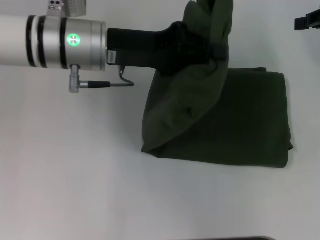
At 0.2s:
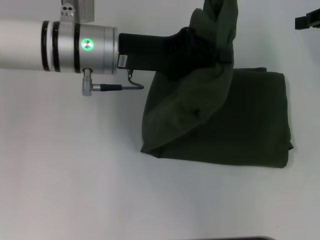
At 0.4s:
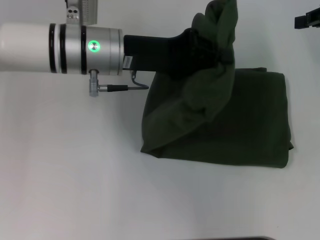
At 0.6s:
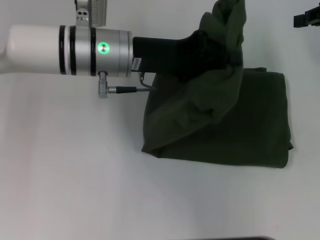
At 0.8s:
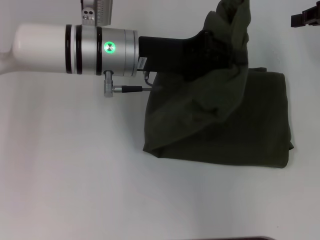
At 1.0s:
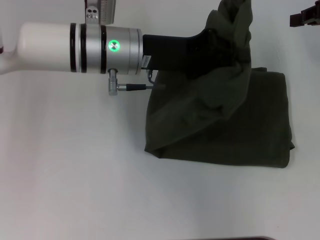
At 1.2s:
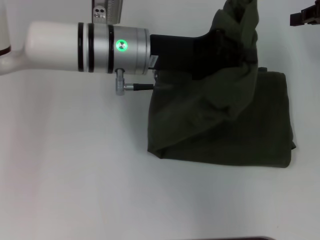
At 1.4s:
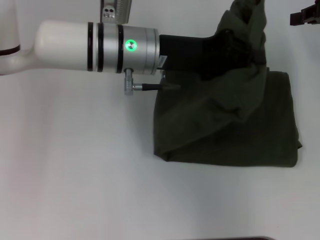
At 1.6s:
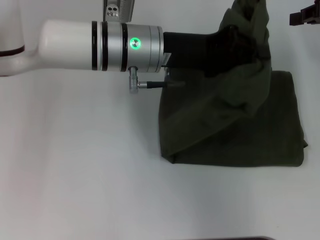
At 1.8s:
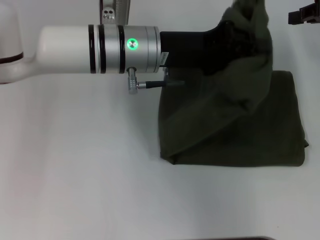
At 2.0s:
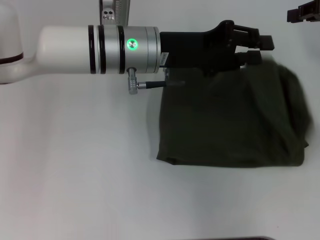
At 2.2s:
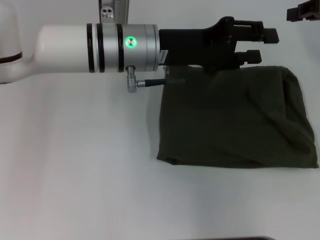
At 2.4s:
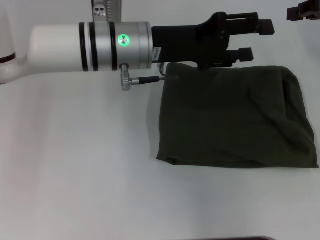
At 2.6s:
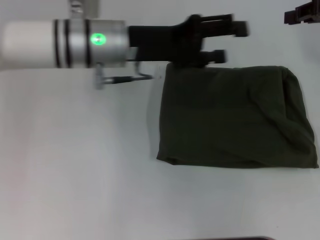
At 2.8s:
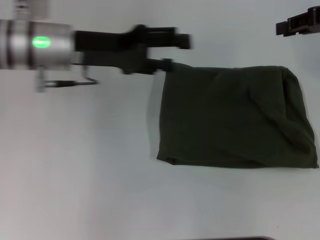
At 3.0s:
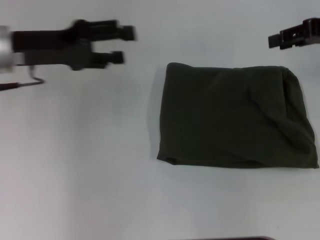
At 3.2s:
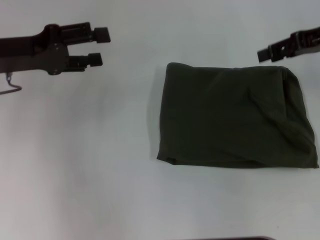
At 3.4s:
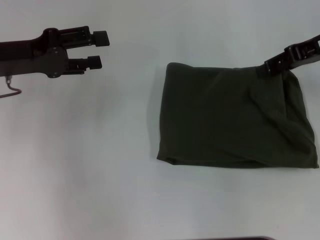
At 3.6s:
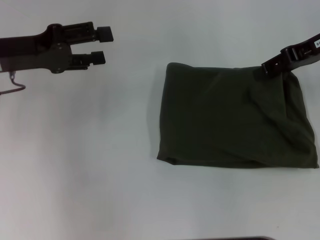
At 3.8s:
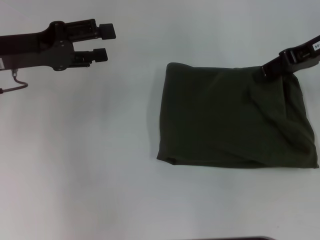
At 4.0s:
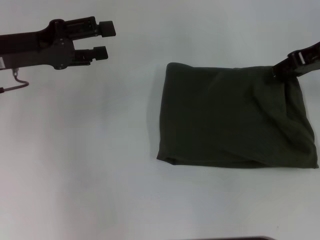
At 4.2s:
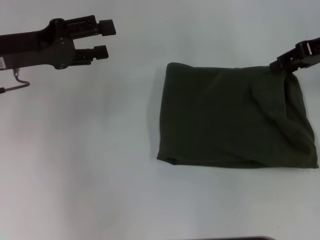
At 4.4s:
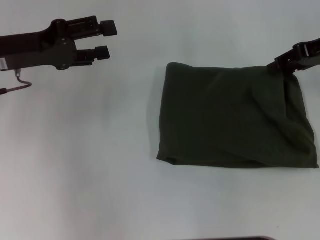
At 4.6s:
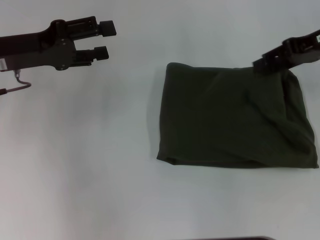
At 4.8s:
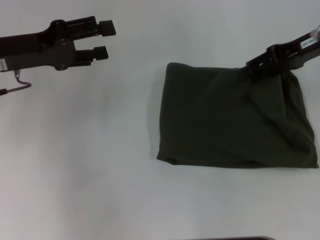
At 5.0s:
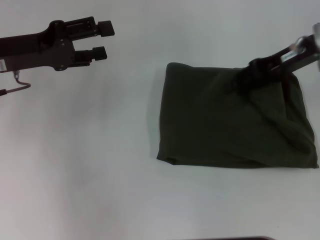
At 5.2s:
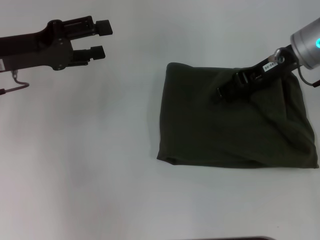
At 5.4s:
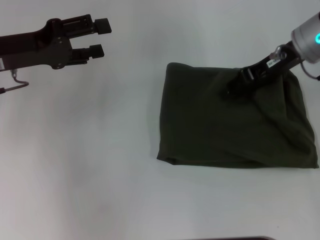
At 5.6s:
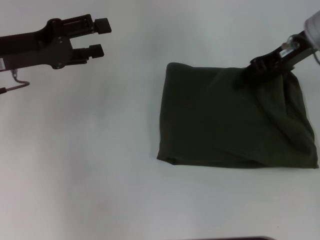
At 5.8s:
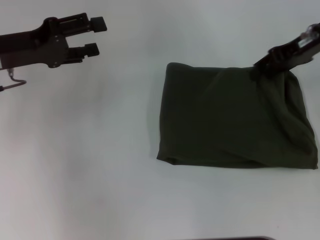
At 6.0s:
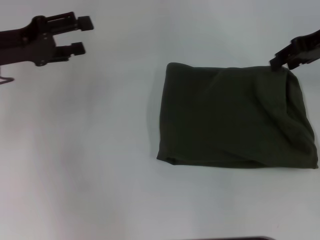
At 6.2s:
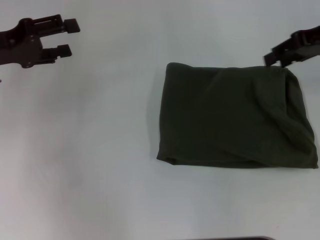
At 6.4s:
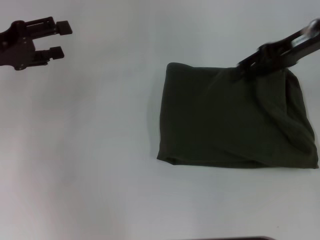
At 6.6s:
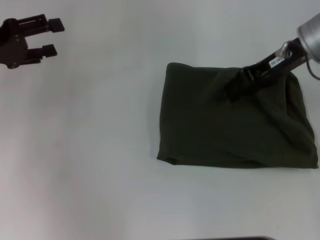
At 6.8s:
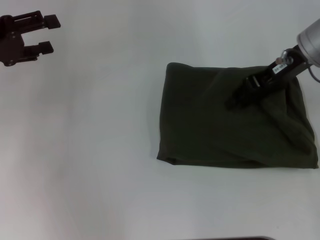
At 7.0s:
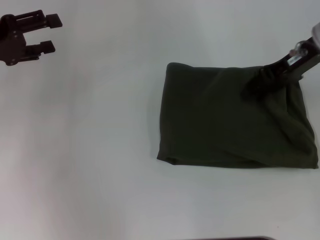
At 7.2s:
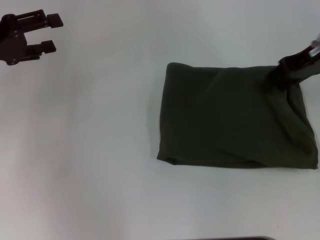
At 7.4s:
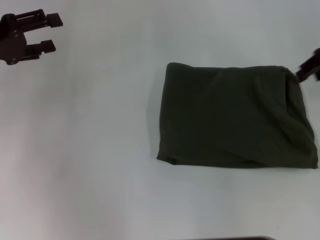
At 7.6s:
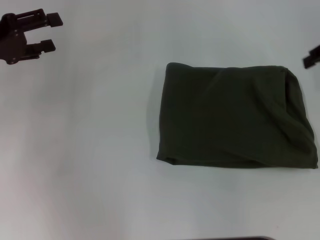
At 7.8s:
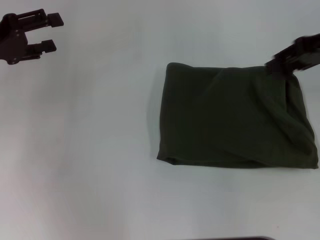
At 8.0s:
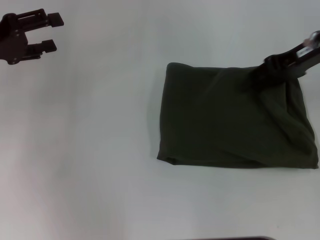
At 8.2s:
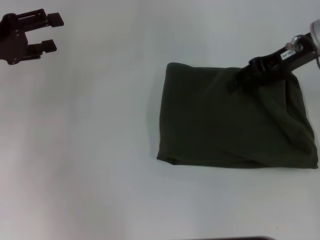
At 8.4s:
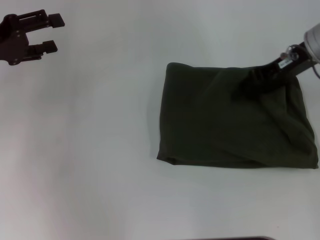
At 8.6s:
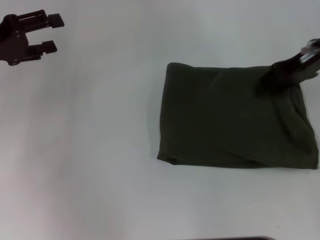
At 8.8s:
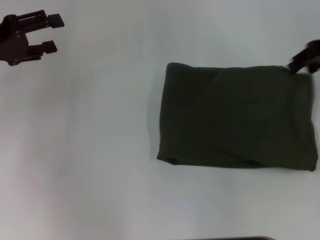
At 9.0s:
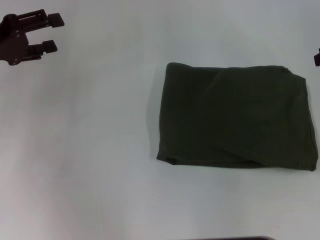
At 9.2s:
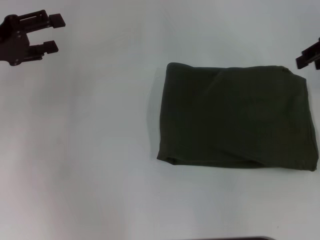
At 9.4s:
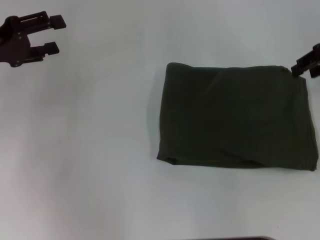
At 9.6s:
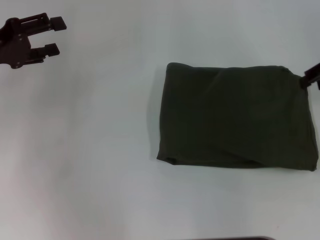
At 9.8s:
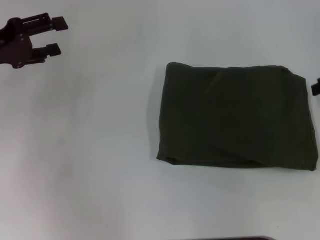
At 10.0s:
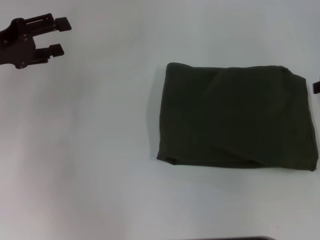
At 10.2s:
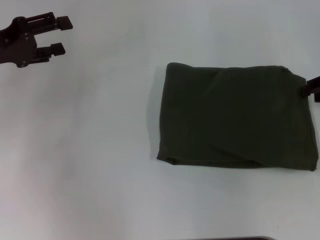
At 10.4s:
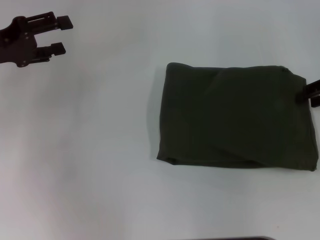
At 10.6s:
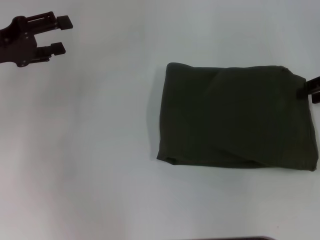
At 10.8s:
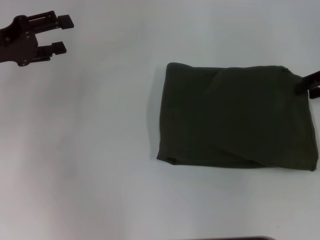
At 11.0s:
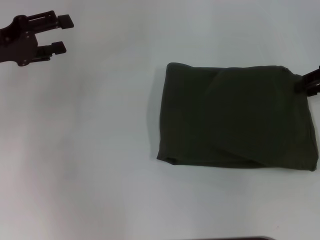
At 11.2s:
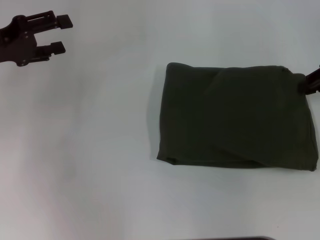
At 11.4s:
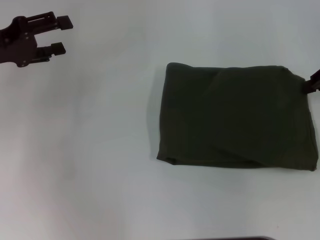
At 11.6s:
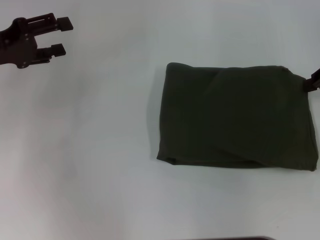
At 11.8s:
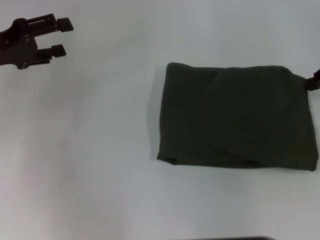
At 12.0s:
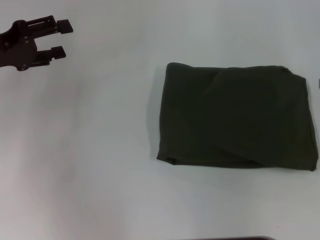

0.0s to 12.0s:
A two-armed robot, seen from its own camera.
Step, 0.0s to 2.0s: Fold the clothes with your left hand.
0.0s to 1.6s: The left gripper goes some 5 cm to the right.
1.6s to 3.0s: The left gripper shifts roughly 20 cm to the left, and opens.
3.0s to 4.4s: The grippers move only a little.
4.4s to 6.0s: The right gripper moves roughly 10 cm to the left and comes back.
6.0s to 7.6s: The right gripper travels to the left and back again, roughly 5 cm each way.
7.6s to 9.0s: The right gripper travels to the left and back again, roughly 10 cm each way.
9.0s to 10.4s: The right gripper shifts about 10 cm downward.

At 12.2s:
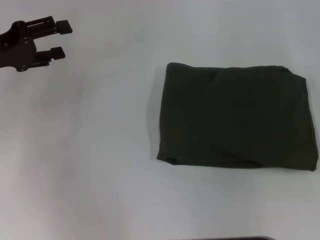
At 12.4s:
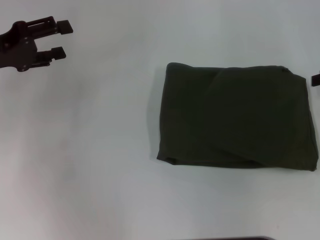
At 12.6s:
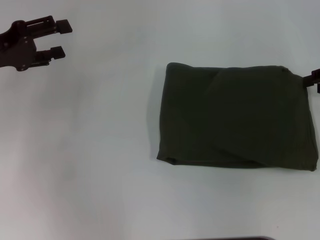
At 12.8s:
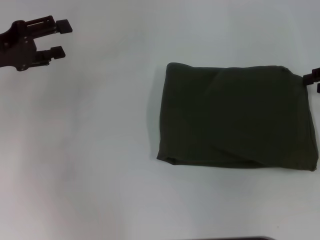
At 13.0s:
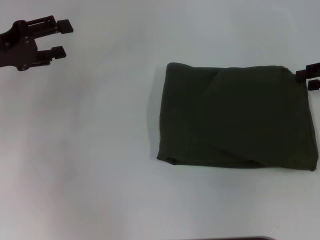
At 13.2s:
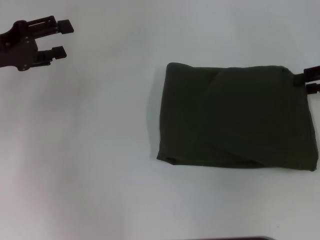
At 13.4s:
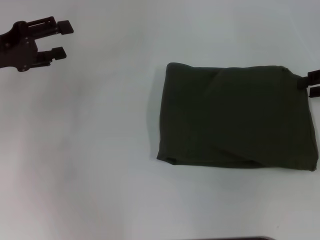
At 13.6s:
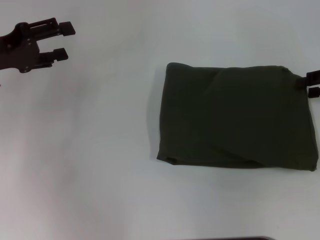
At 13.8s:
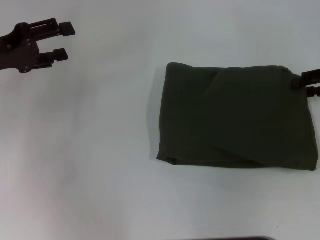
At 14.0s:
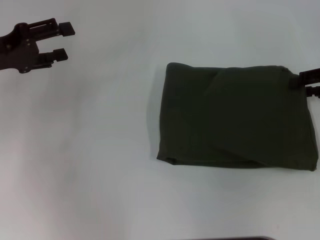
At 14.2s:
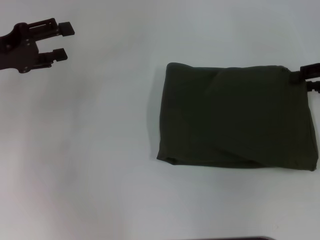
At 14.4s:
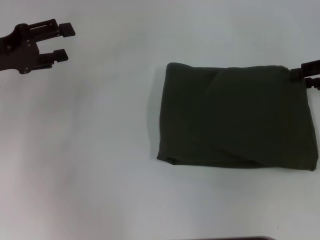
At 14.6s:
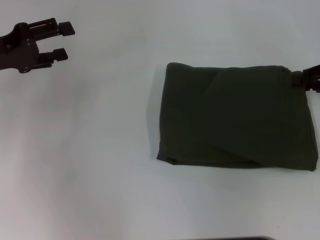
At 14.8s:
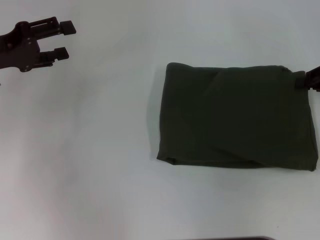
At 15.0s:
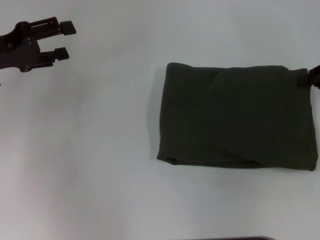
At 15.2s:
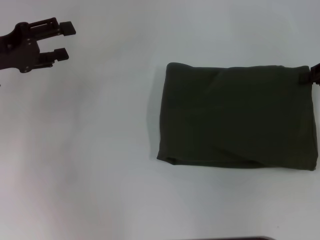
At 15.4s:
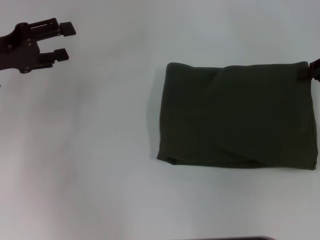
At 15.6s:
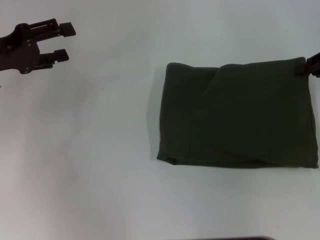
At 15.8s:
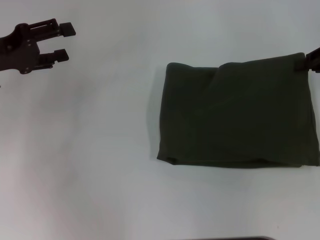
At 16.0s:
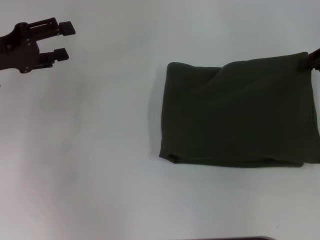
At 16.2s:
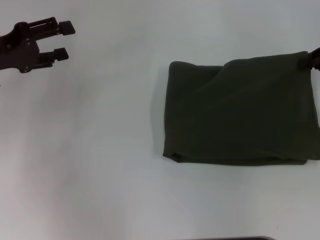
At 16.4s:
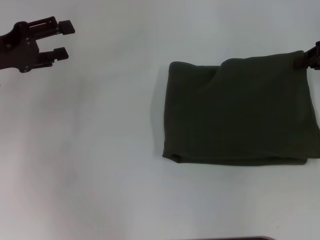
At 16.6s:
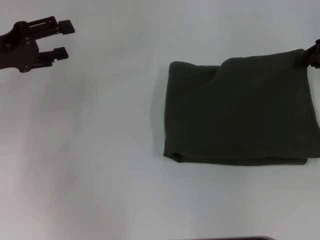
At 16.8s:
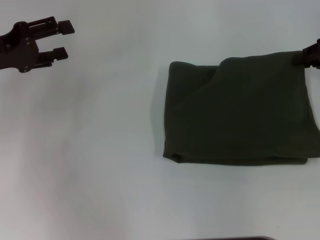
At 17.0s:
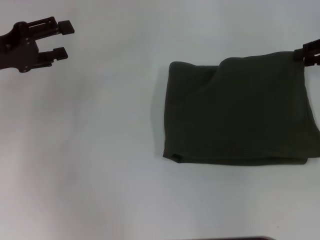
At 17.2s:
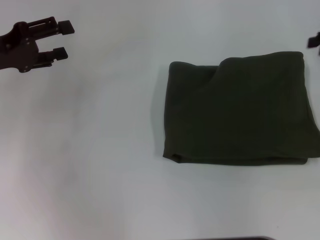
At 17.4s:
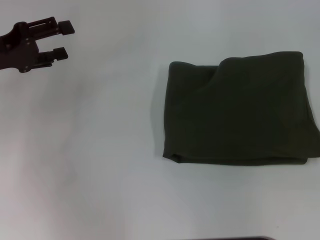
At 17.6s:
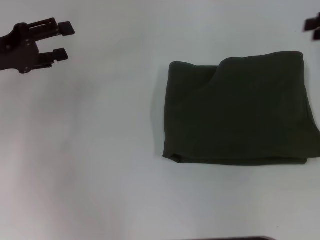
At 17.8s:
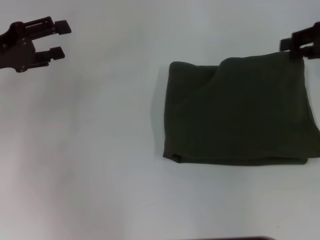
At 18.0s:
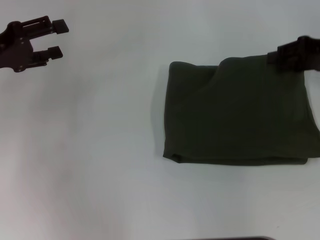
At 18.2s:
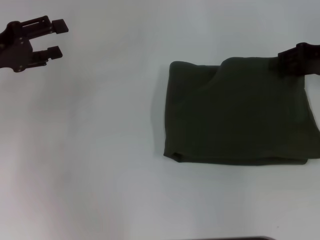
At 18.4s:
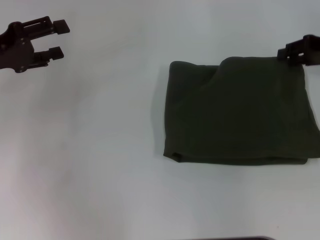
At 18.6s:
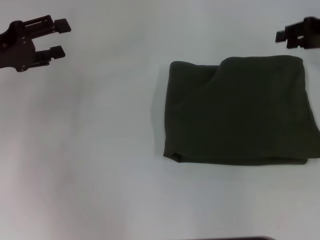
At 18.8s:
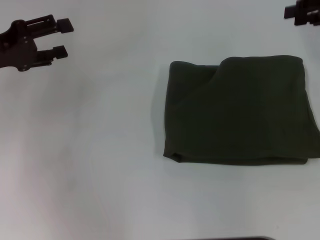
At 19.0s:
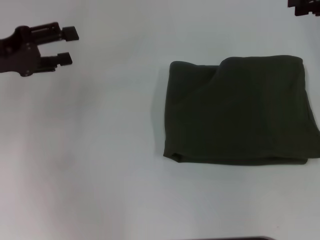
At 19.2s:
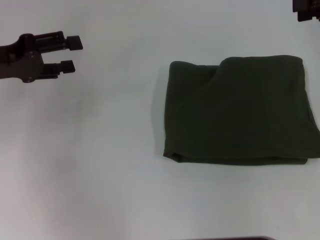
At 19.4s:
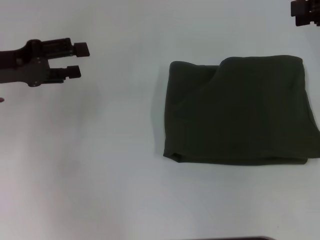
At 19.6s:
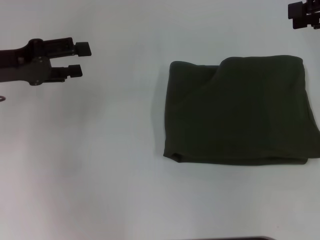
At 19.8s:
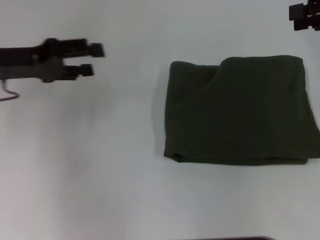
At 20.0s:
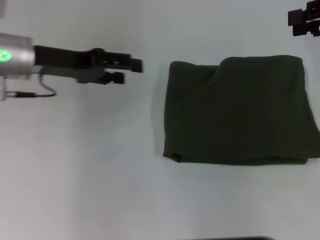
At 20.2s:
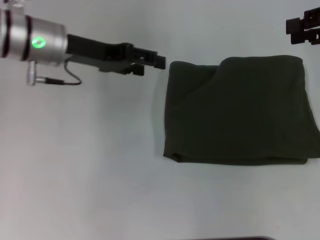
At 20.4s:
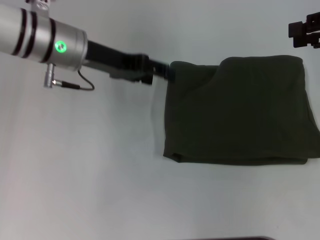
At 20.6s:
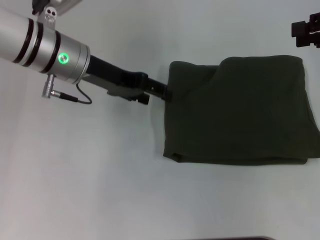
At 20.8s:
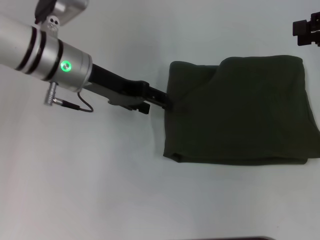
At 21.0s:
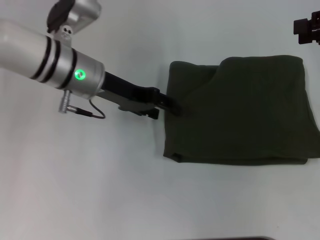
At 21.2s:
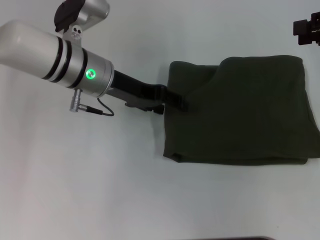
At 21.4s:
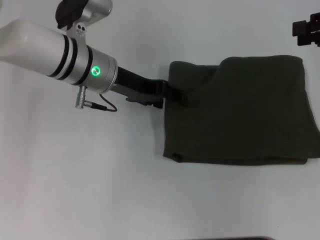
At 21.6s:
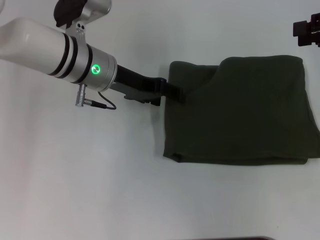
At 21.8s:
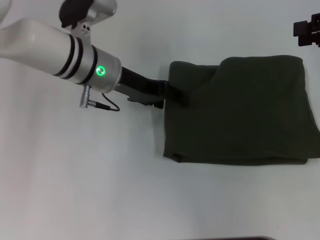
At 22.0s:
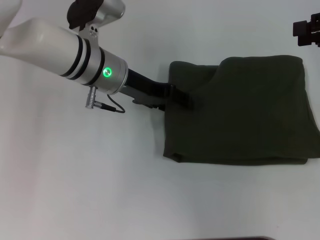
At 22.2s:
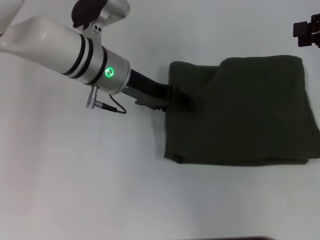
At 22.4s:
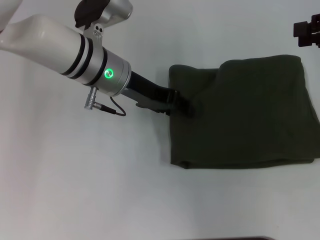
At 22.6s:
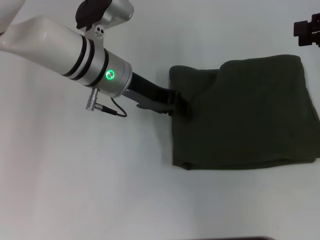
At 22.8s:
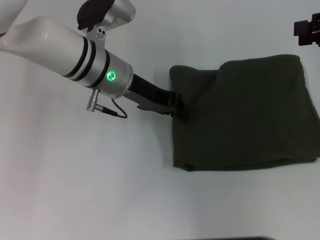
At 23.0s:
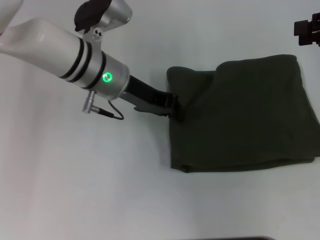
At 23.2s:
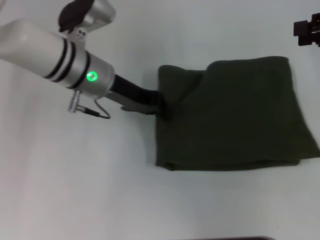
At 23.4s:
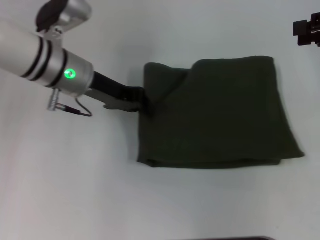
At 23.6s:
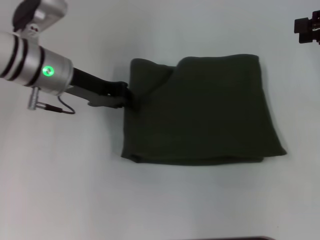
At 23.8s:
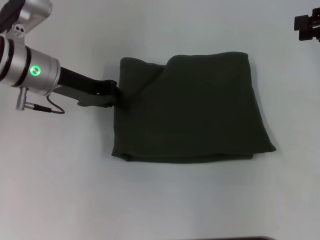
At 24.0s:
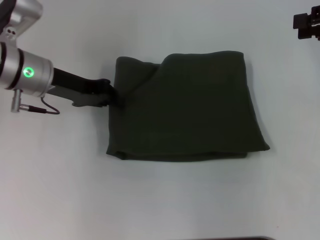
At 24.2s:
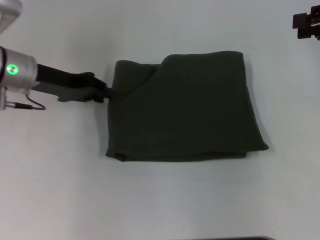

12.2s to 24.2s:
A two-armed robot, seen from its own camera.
12.2s to 13.8s: The right gripper opens.
13.8s to 15.2s: The right gripper closes up.
15.2s to 16.6s: There are only small adjustments of the grippers.
16.6s to 18.2s: The right gripper opens up.
18.2s to 19.8s: The right gripper is displaced upward by approximately 10 cm.
19.8s to 21.2s: The left gripper shifts some 15 cm to the right.
21.2s to 22.6s: The grippers make only small movements.
22.6s to 24.2s: The left gripper travels to the left by some 15 cm, and closes up.
